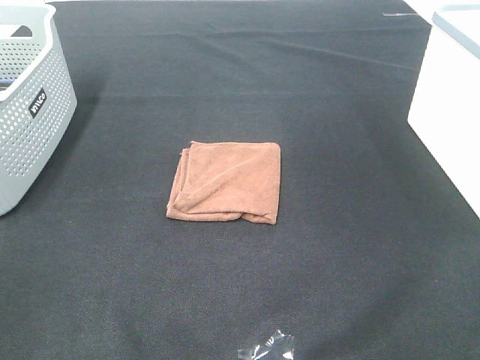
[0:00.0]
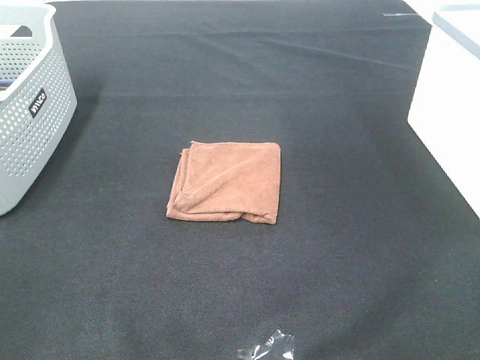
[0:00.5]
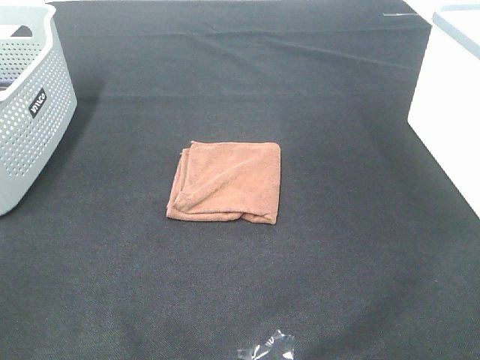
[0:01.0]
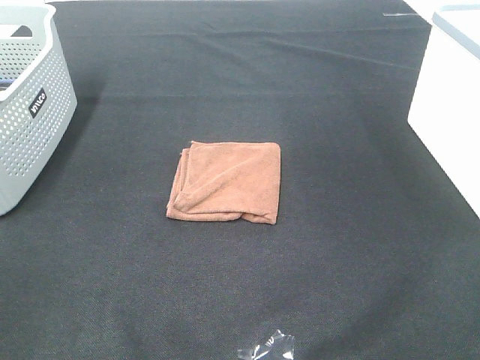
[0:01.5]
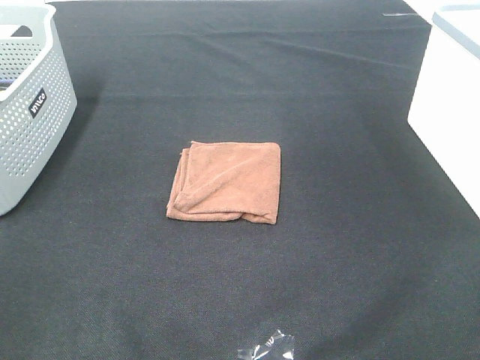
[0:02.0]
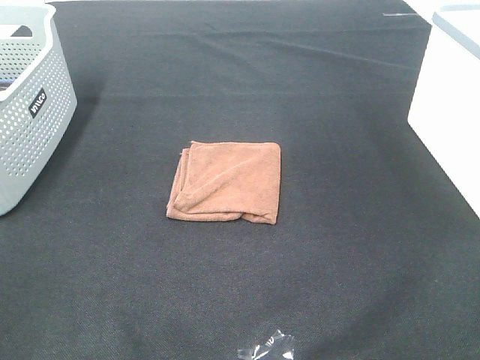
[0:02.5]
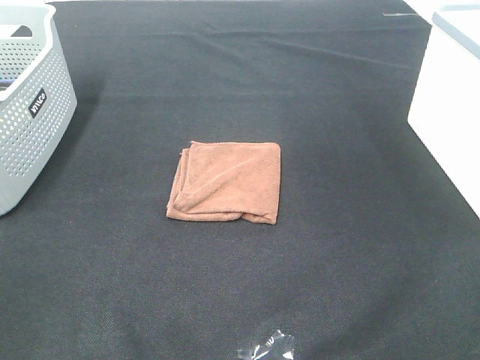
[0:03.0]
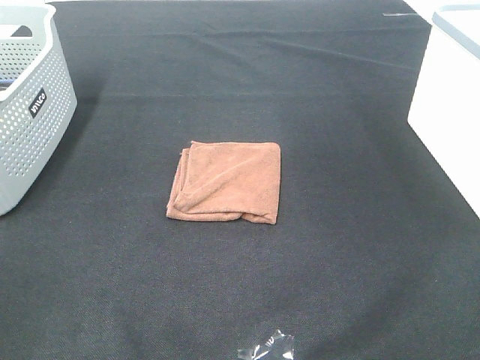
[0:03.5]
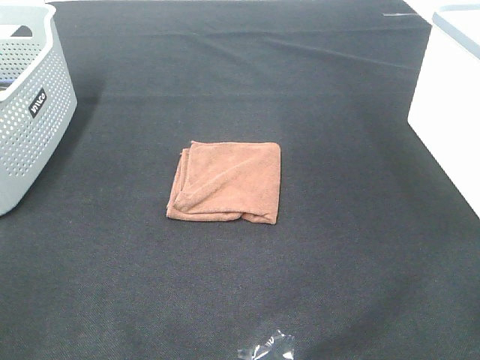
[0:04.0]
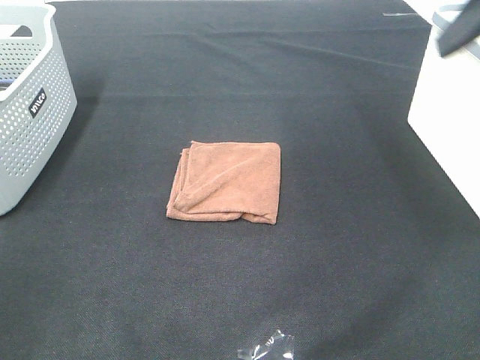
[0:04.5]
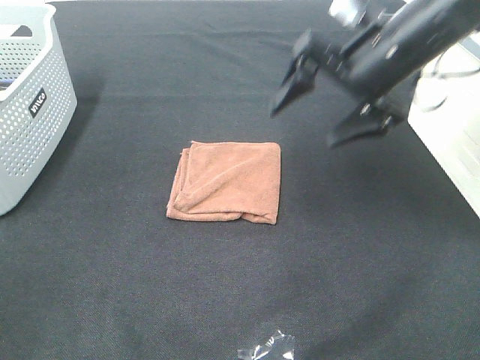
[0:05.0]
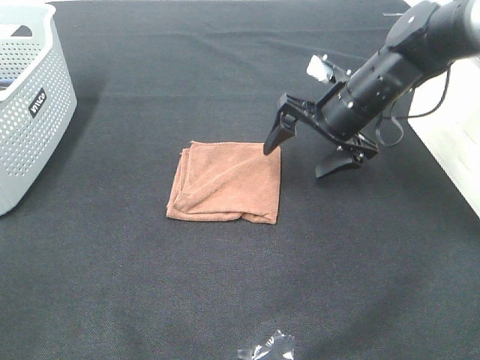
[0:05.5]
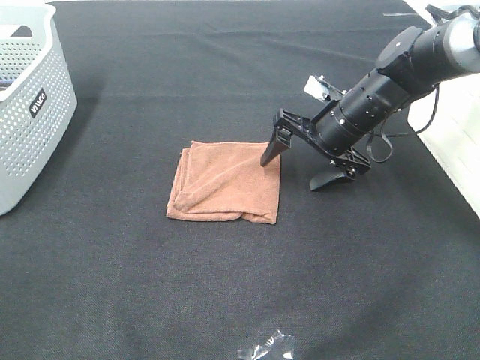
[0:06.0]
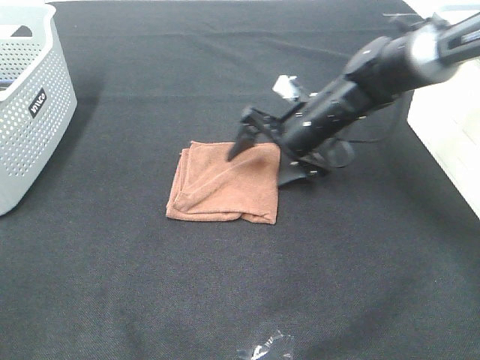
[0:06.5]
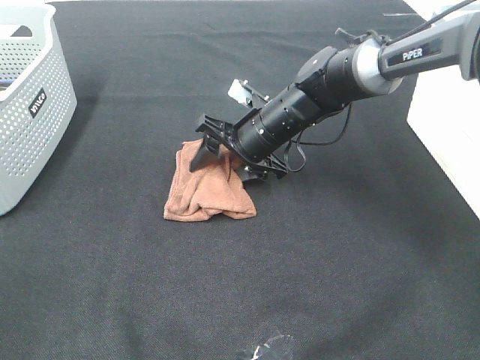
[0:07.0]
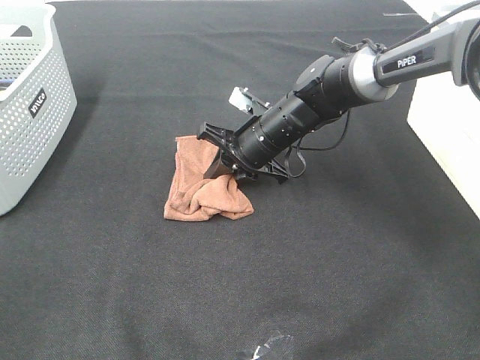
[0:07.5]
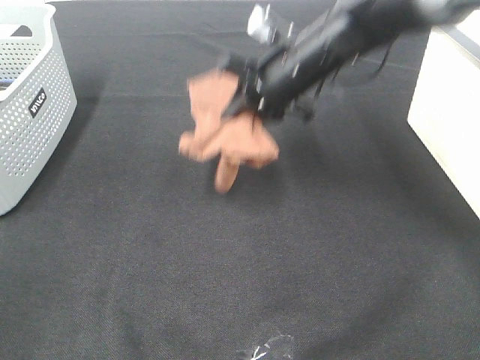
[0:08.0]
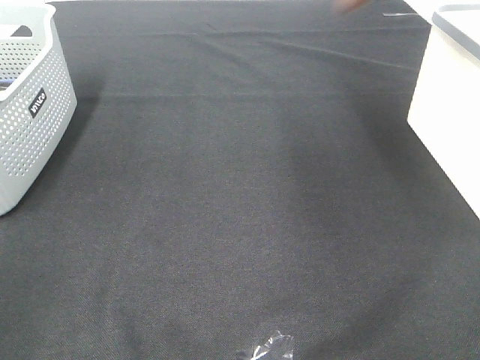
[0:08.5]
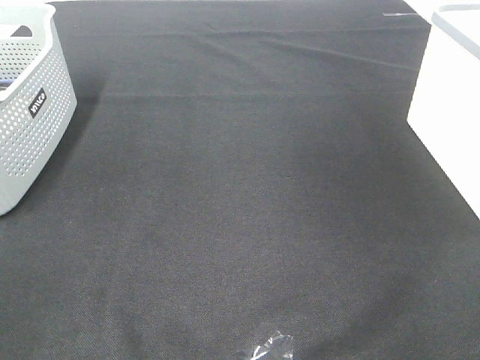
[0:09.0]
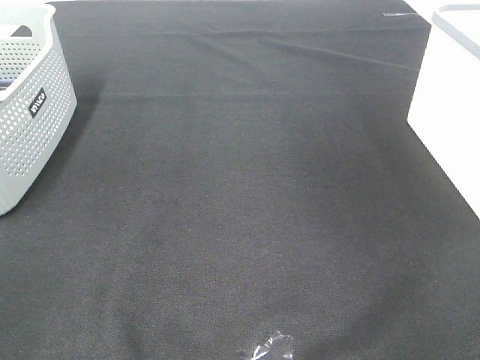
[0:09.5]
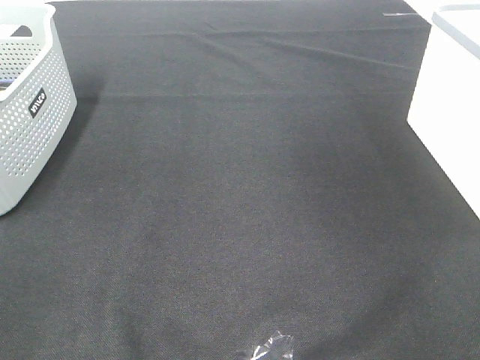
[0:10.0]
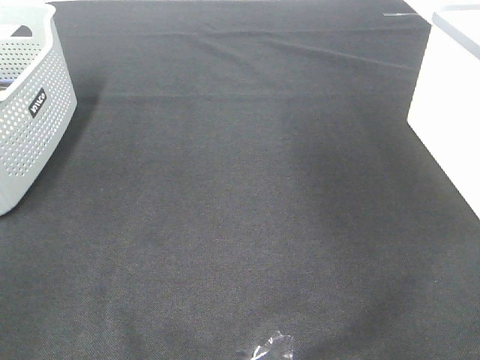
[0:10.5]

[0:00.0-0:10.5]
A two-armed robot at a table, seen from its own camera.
Step, 0:00.0 to 0:07.5: Right hand: grab the folded brown towel.
Step, 0:08.0 to 0:09.5: Right hand: place the brown towel in right basket.
0:00.0 to 0:02.0: Neither gripper changes place.
0:04.0 to 0:06.5: The right gripper heads downward, forward and to the left, covering approximately 40 cm.
0:06.5 to 0:08.5: The right gripper goes some 35 cm upward and to the right, and closes up.
0:08.5 to 0:10.5: The right gripper moves some 15 cm to the right and comes back, and opens up.

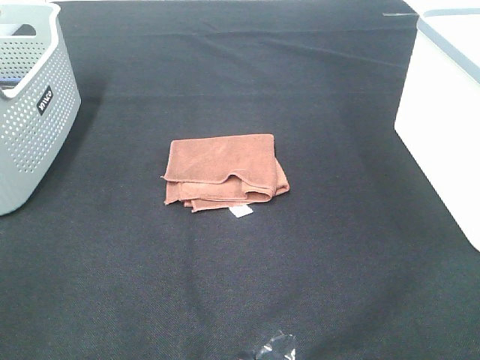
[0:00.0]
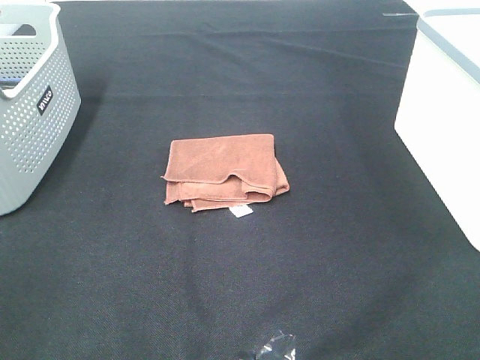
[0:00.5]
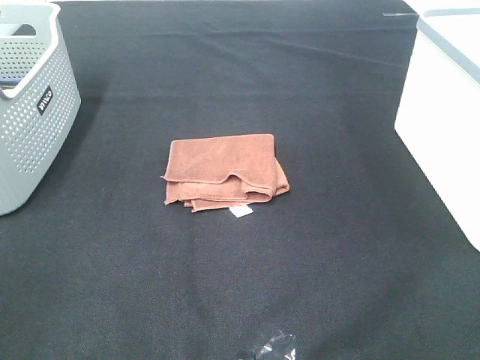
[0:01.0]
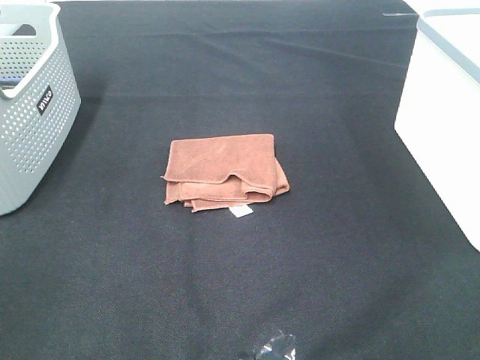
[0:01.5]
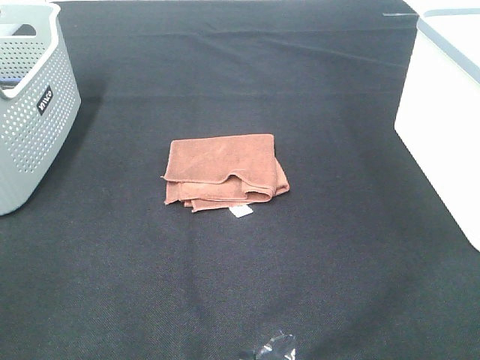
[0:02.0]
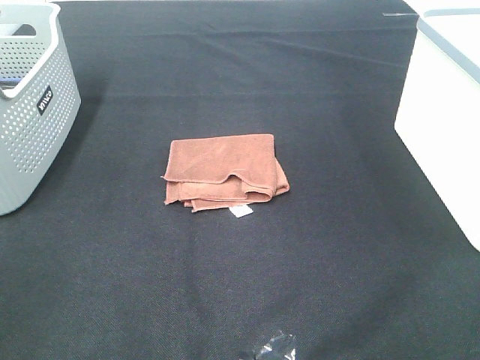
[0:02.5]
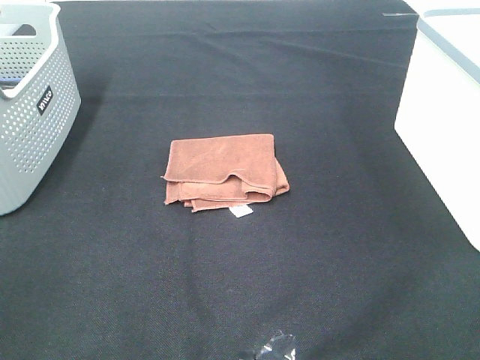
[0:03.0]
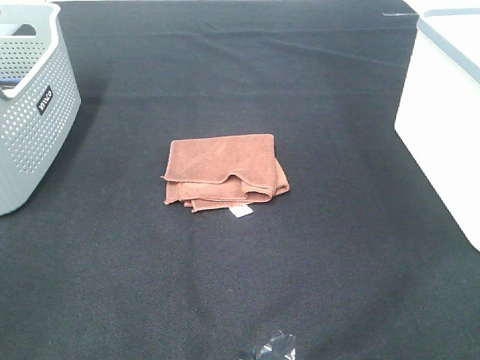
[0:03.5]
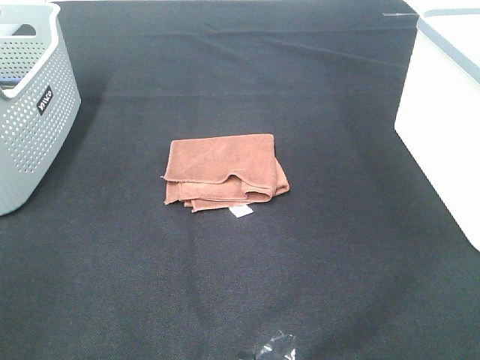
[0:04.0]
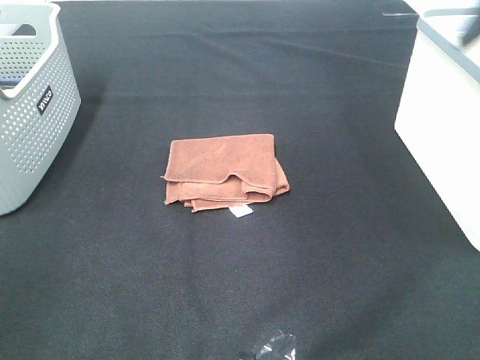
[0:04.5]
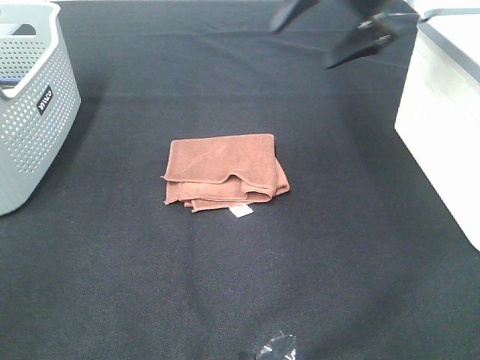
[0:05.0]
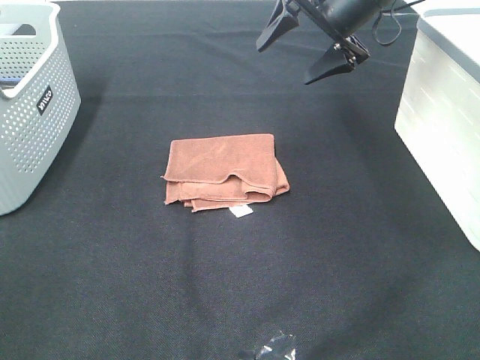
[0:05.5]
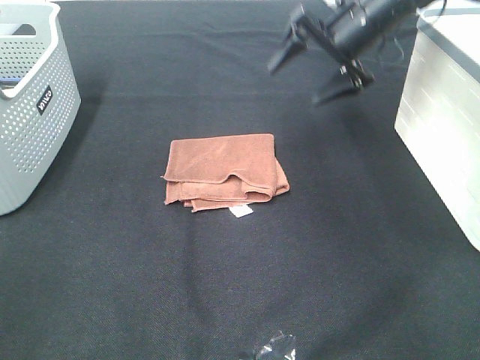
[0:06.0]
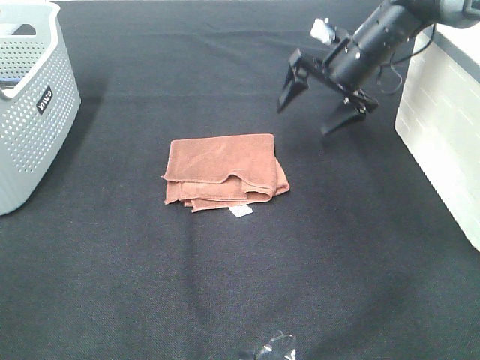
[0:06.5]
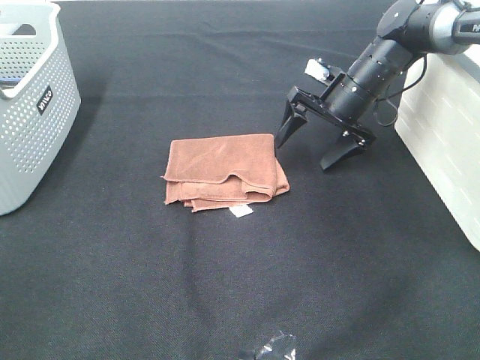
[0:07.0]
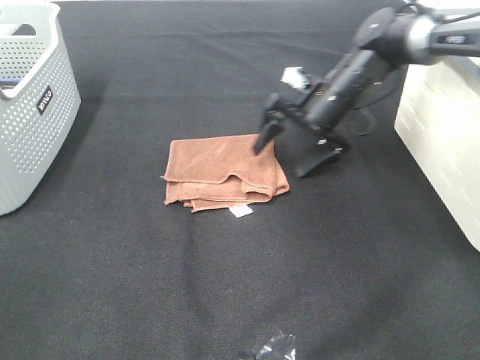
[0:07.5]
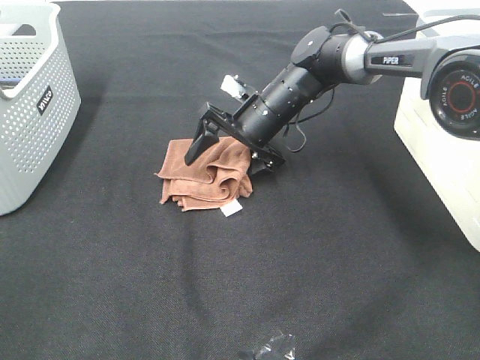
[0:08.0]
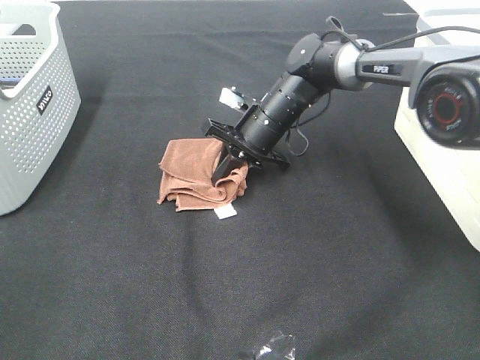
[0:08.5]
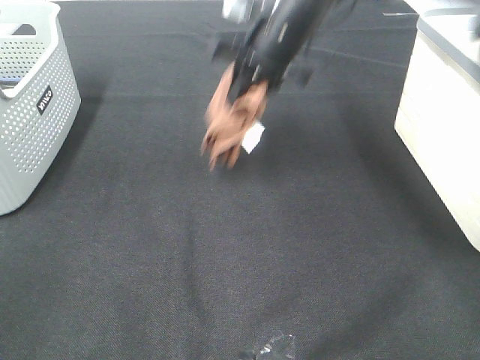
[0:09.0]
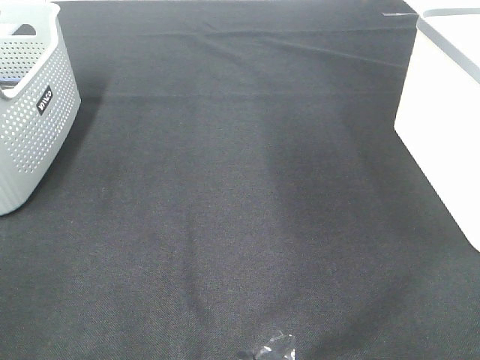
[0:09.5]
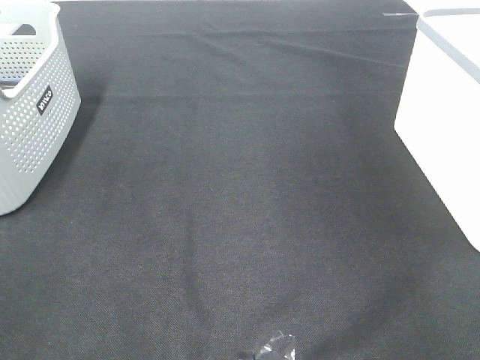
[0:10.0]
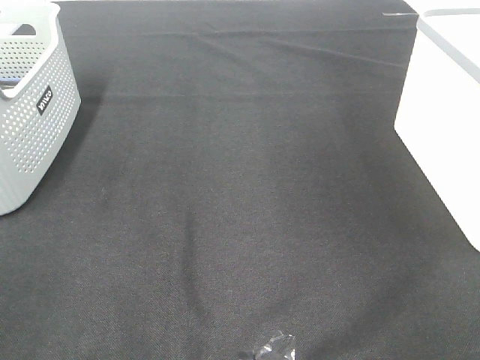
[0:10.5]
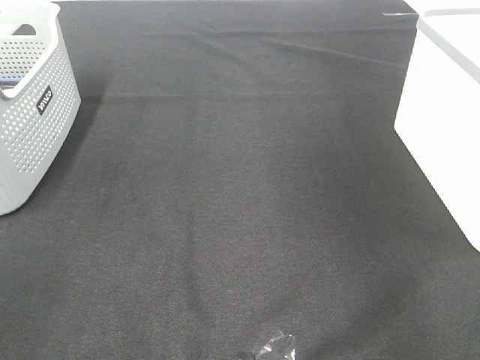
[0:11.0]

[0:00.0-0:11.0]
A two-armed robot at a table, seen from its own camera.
Step, 0:00.0 to 0:08.0: Right hand: grab the folded brown towel.
Step, 0:08.5 to 0:10.5: Right hand: place the brown towel in right basket.
0:00.0 to 0:03.5: Neither gripper changes place.
0:03.5 to 0:05.5: The right gripper is displaced forward by about 50 cm.
0:05.5 to 0:07.5: The right gripper is displaced downward by roughly 15 cm.
0:07.5 to 0:09.0: The right gripper is displaced upward and to the left by roughly 15 cm, and closes.
0:09.0 to 0:11.0: The right gripper moves to the right and upward, about 30 cm, and opens.

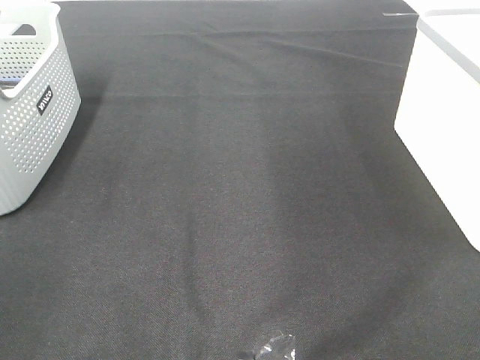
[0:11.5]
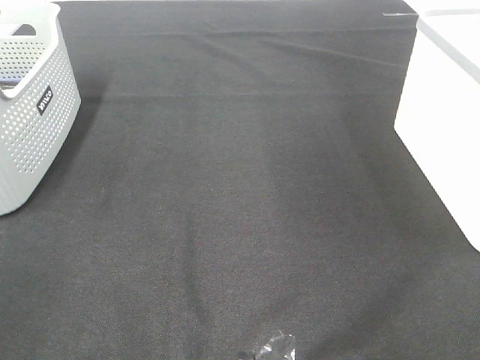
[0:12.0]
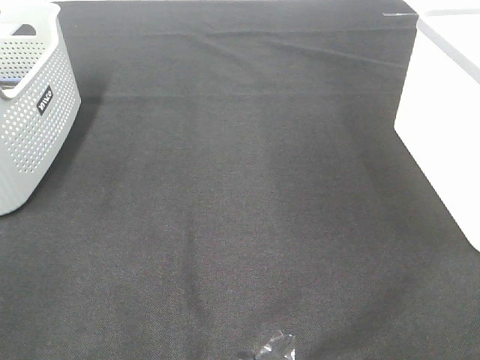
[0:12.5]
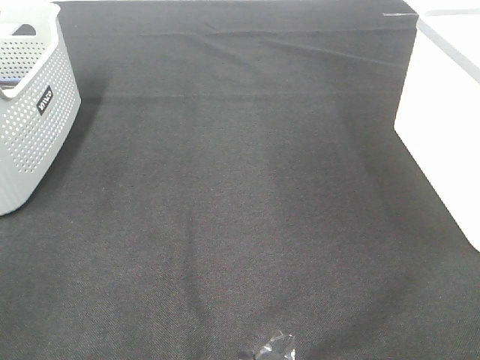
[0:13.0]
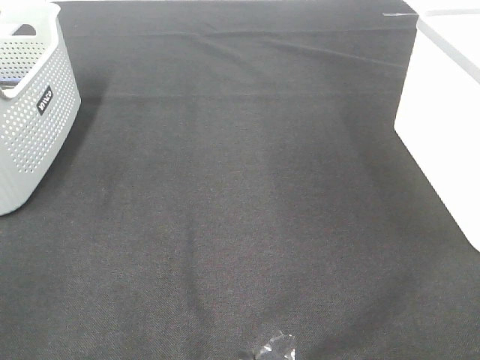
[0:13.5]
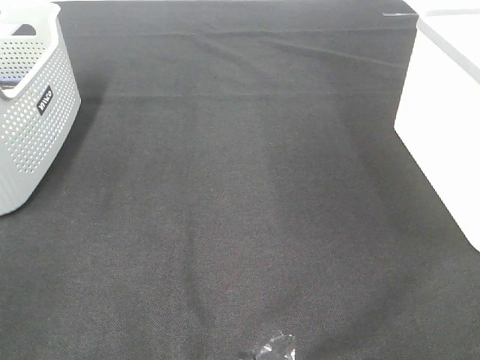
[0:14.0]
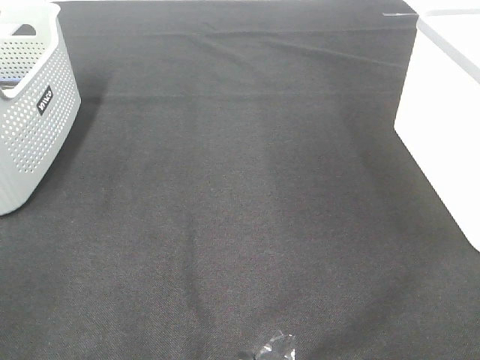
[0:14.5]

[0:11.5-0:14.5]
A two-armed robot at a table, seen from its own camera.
0:13.0 to 0:14.5: Neither gripper changes place.

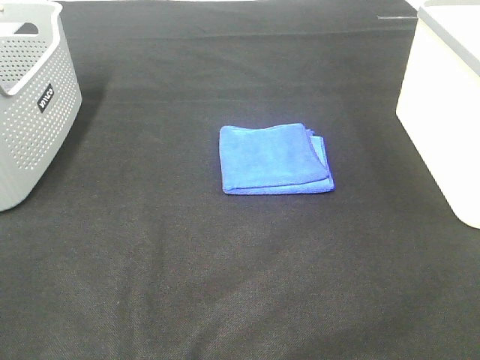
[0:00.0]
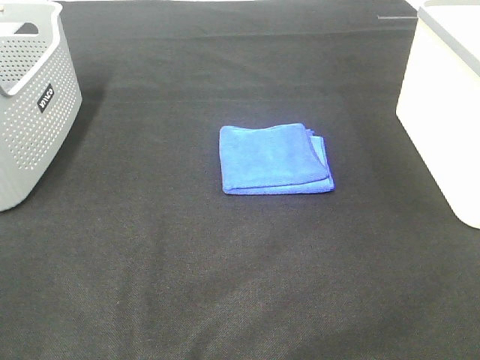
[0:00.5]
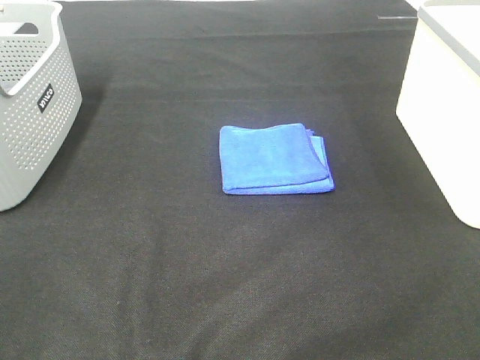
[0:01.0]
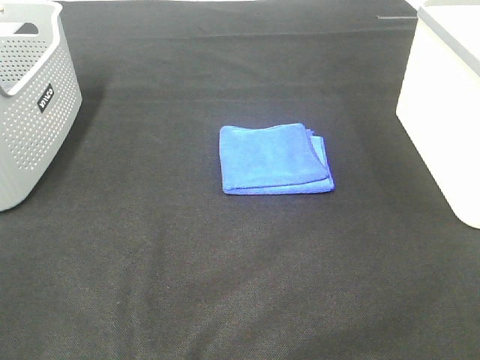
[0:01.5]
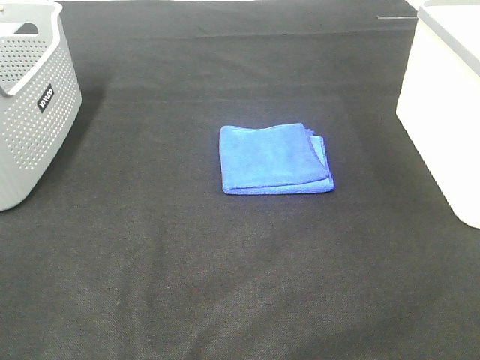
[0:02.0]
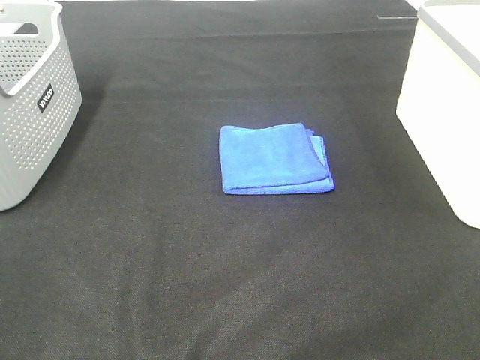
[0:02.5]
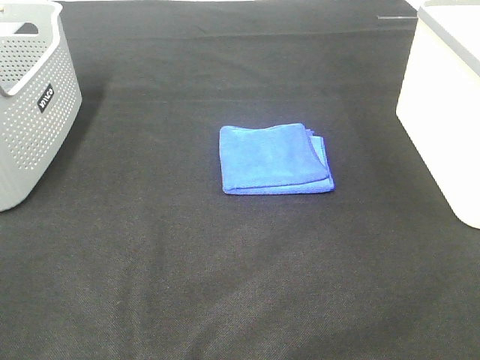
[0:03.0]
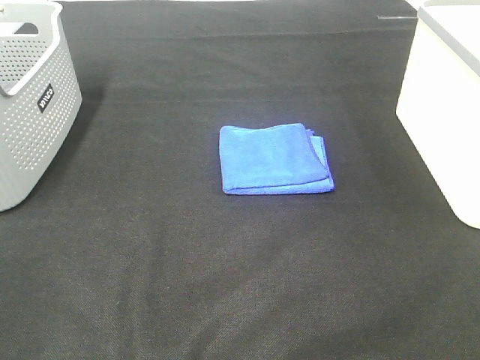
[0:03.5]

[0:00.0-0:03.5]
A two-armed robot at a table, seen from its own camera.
0:00.0 to 0:03.5: Both grippers stay put.
